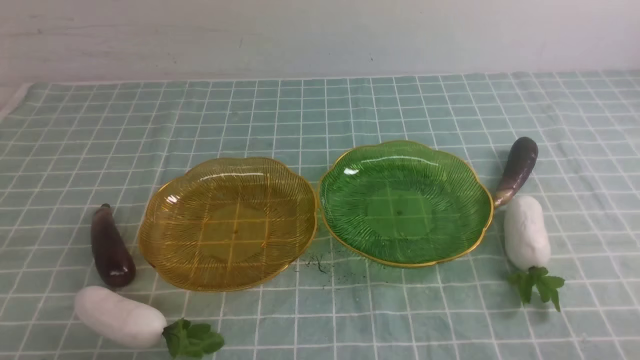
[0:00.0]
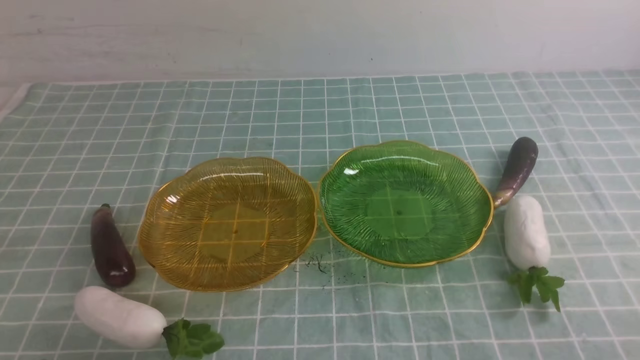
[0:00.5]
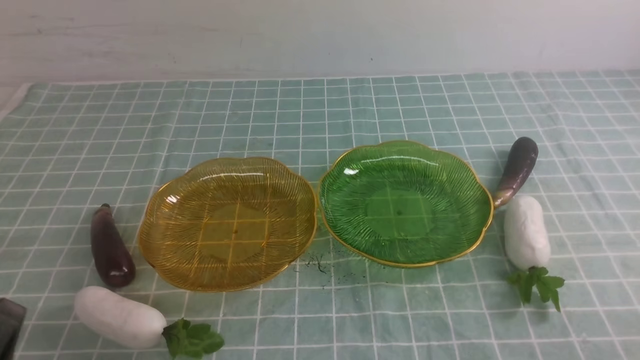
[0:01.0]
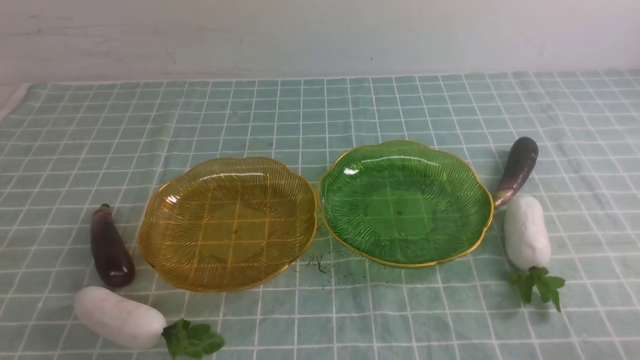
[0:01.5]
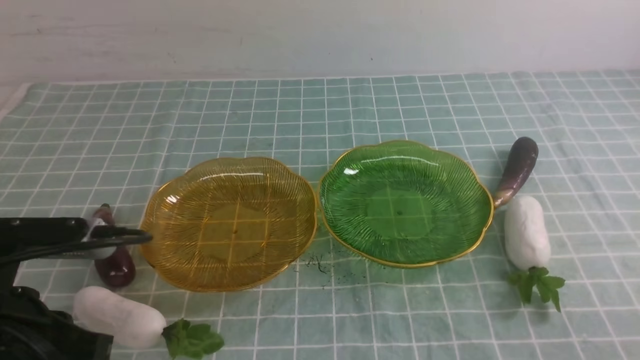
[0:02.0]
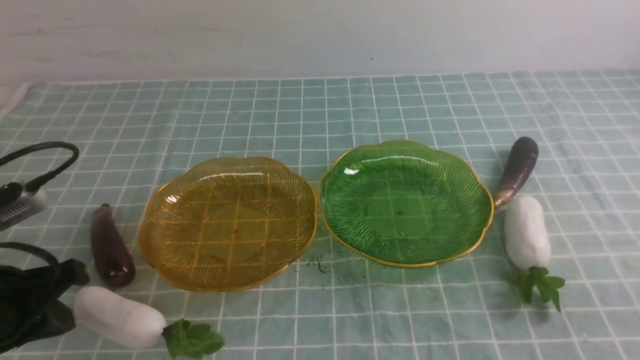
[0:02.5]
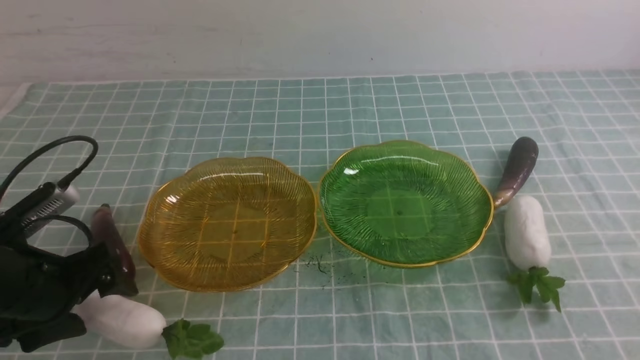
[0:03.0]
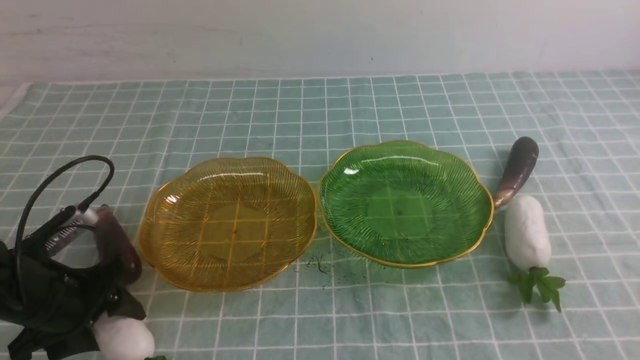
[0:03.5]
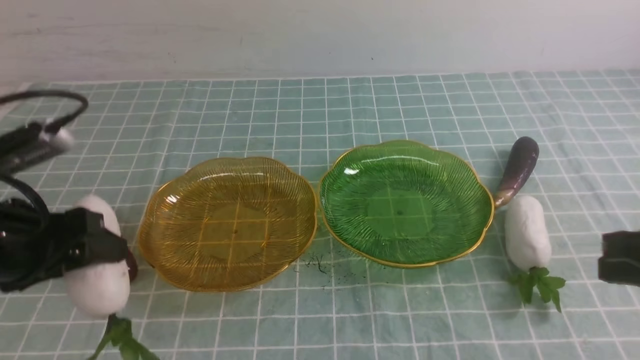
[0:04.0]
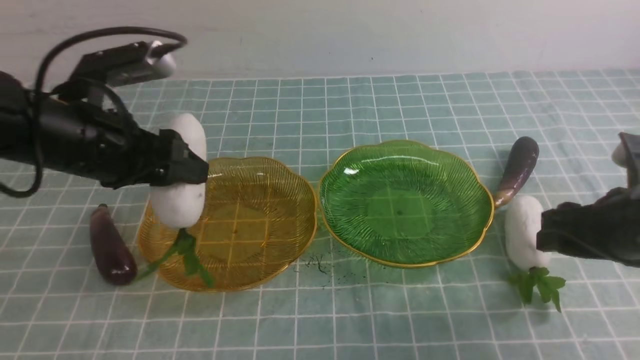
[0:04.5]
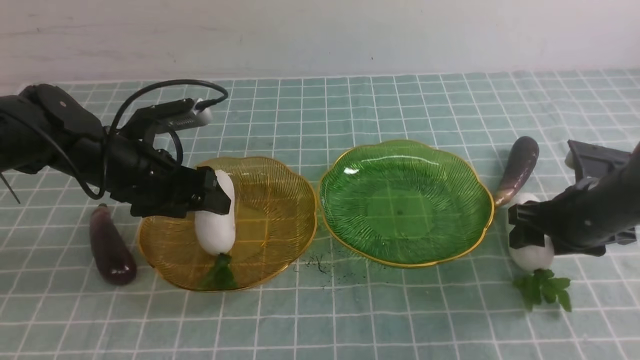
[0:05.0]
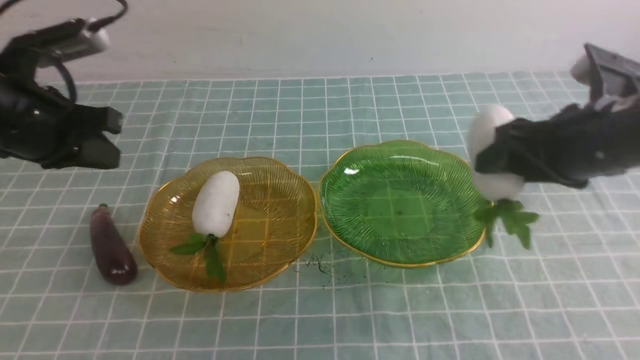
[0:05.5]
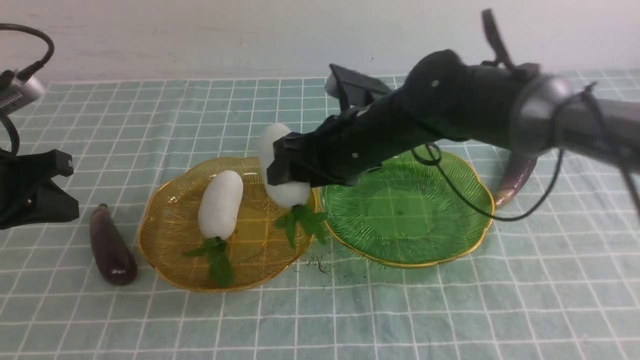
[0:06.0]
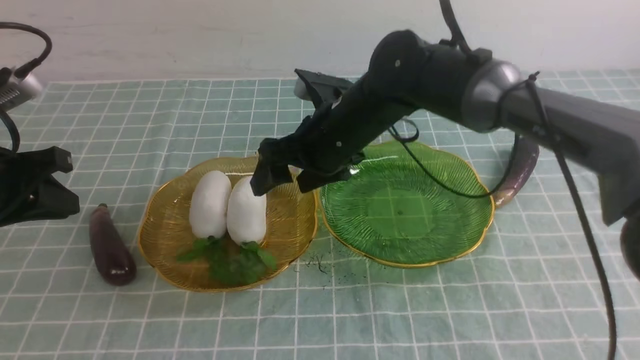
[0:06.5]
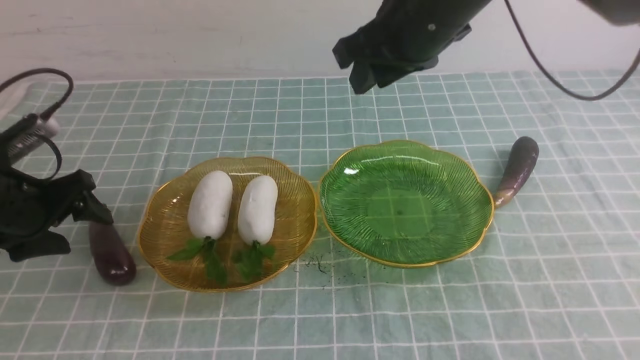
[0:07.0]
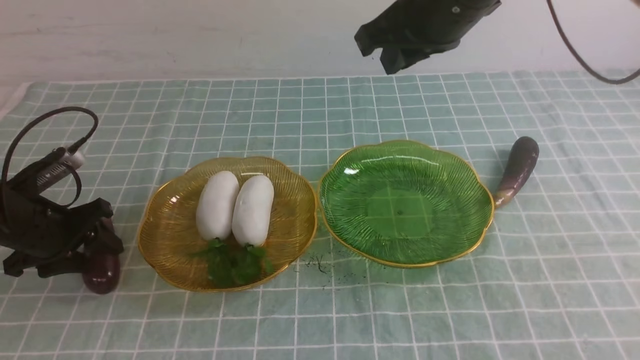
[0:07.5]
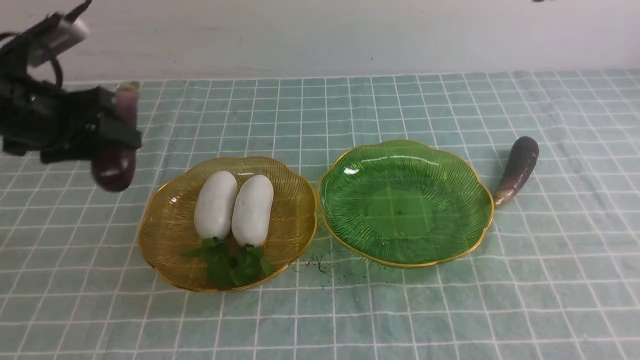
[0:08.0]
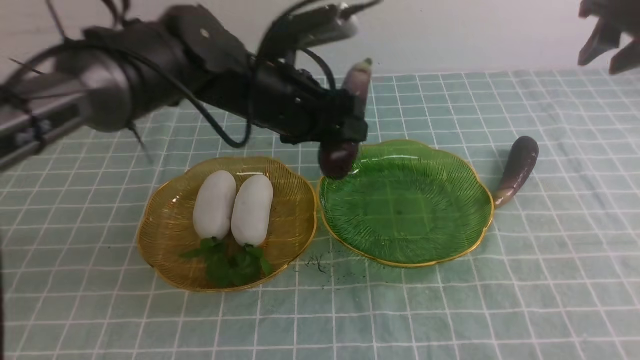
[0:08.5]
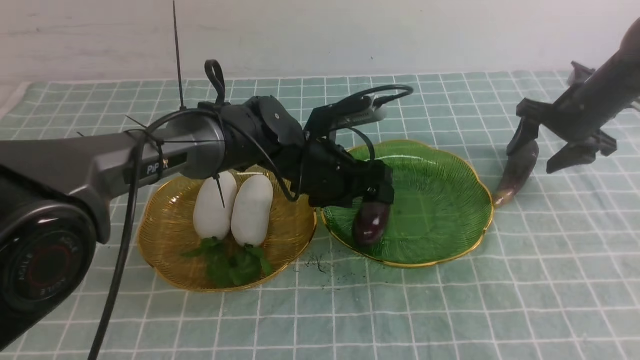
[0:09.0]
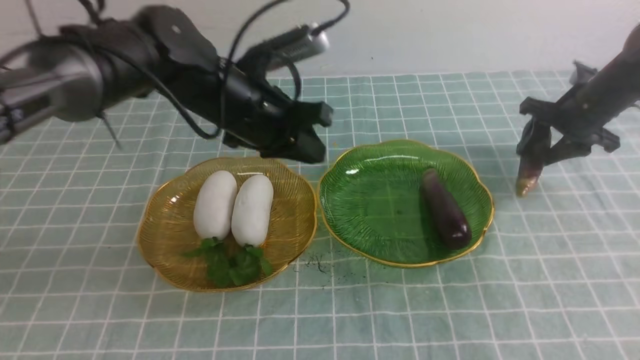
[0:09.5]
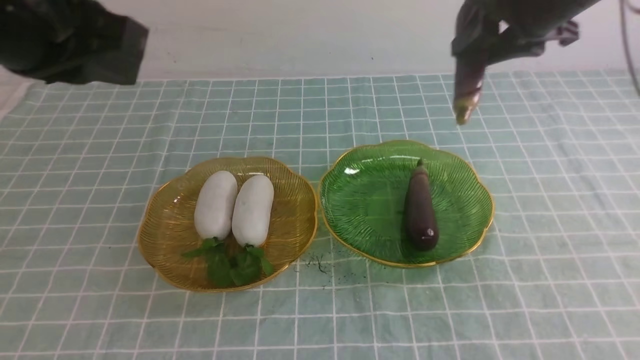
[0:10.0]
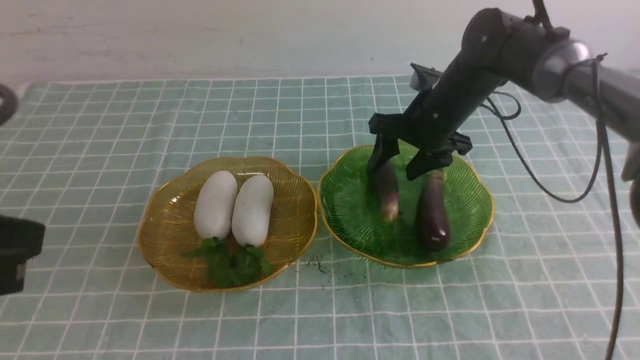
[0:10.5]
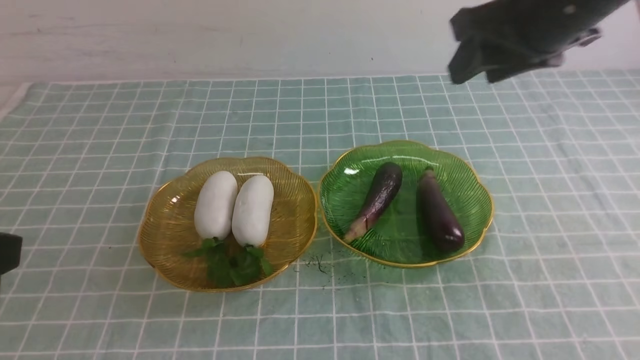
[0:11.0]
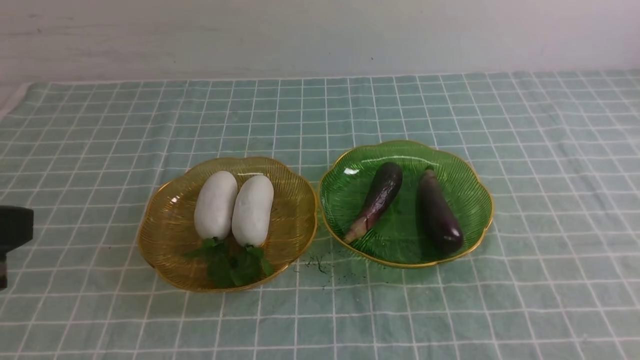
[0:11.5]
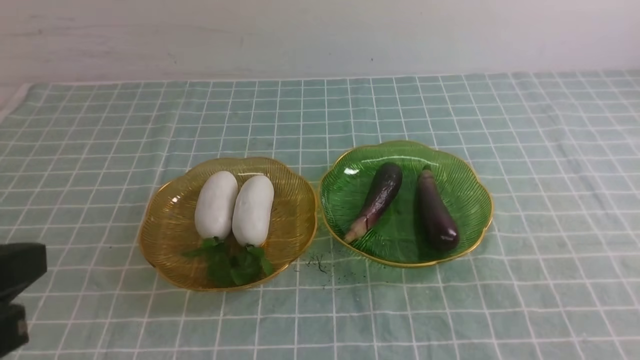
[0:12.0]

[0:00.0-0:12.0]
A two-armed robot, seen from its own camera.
Step, 0:00.0 to 0:04.5: use the left arm to grab a radish and put it into the left plate.
Step, 0:05.0 to 0:06.0: use the right arm to grab a radish and put it into the left plate.
Step, 0:06.5 to 0:08.5: use the left arm to grab an eggplant and put it into the right plate.
Step, 0:09.5 to 0:10.5: use the right arm to grab an eggplant and put it into the right plate.
0:00.0 to 0:02.0: The left gripper travels upward and forward by about 15 cm.
0:02.0 to 0:04.0: The right gripper heads forward and upward, covering some 15 cm. The left gripper is displaced forward by about 10 cm, moves about 10 cm downward and comes back, and opens its fingers.
0:04.0 to 0:06.0: The left gripper is displaced to the left by about 5 cm, and closes up. Meanwhile the right gripper travels to the left and forward by some 30 cm, and opens.
0:06.0 to 0:08.0: The right gripper moves to the right and upward, approximately 25 cm, and closes its fingers. The left gripper heads forward and to the right, covering approximately 10 cm, travels downward and back again, about 10 cm each way, and opens up.
0:08.0 to 0:10.0: The left gripper is displaced upward and backward by some 20 cm, reaches roughly 25 cm to the right, then returns, and closes. The right gripper moves downward and forward, some 10 cm, and opens up.
0:10.0 to 0:12.0: The right gripper moves backward, roughly 40 cm, and closes its fingers, while the left gripper heads backward and downward, covering roughly 20 cm.
